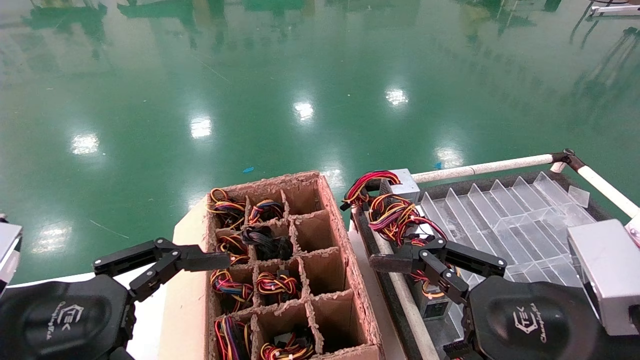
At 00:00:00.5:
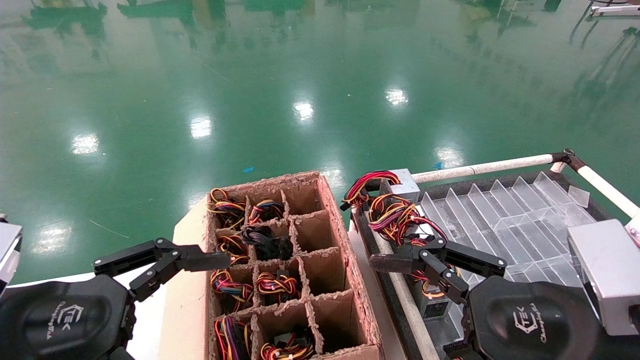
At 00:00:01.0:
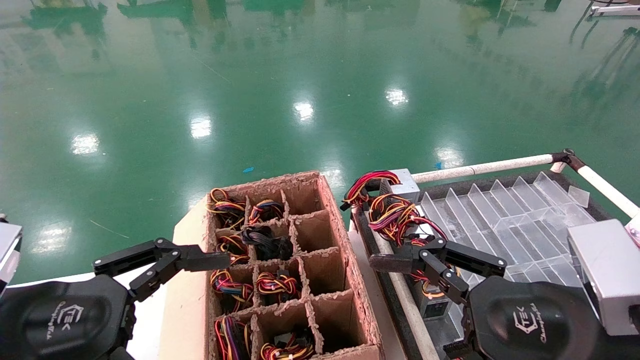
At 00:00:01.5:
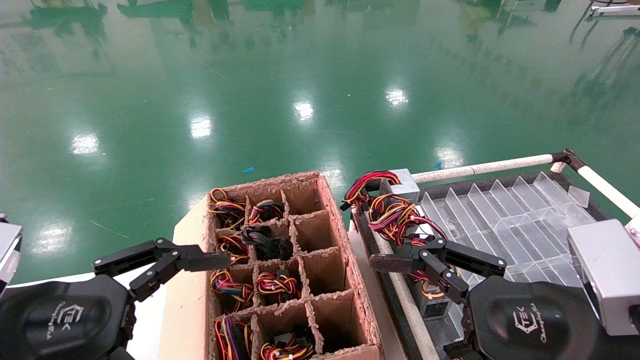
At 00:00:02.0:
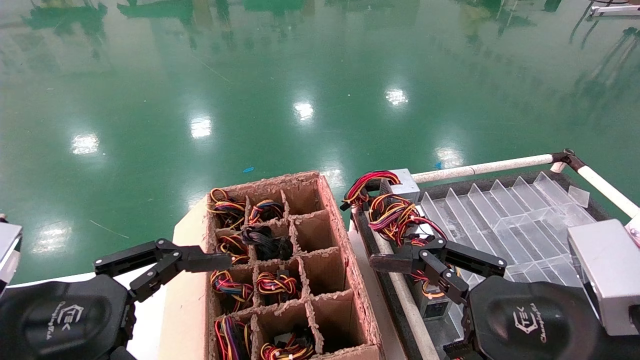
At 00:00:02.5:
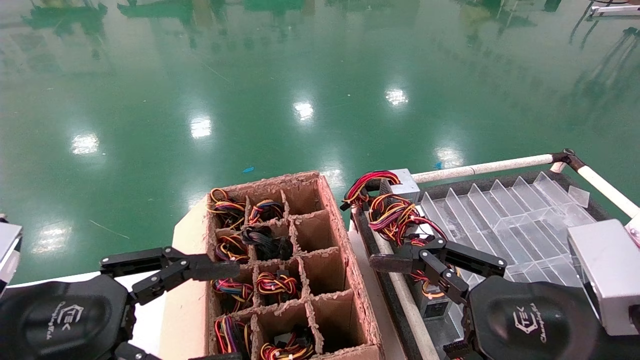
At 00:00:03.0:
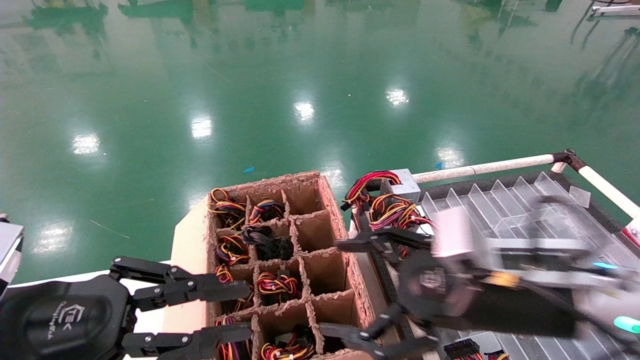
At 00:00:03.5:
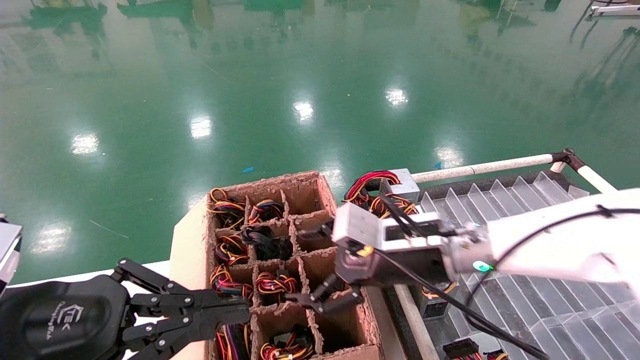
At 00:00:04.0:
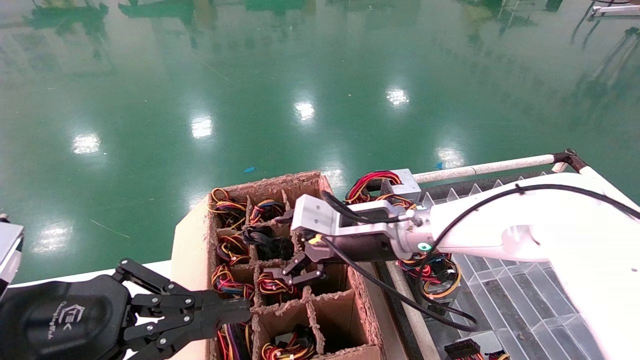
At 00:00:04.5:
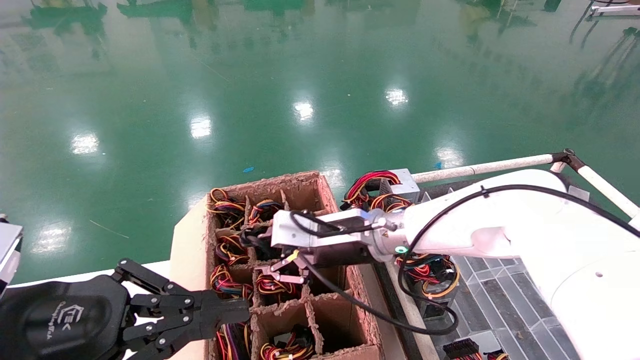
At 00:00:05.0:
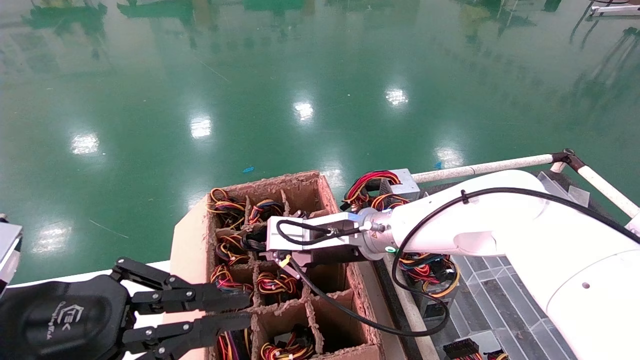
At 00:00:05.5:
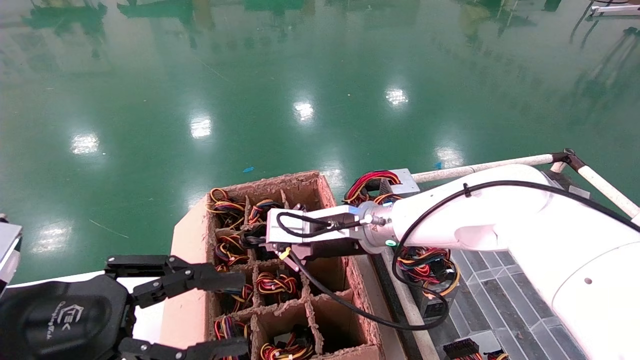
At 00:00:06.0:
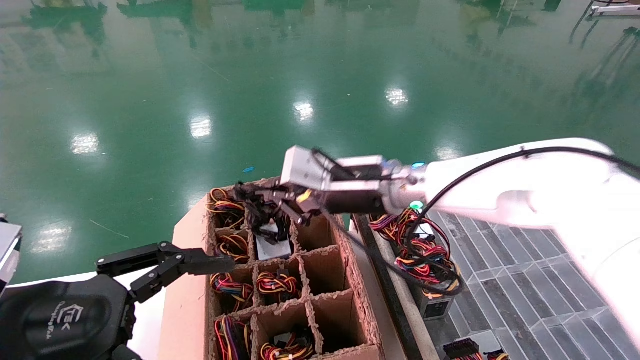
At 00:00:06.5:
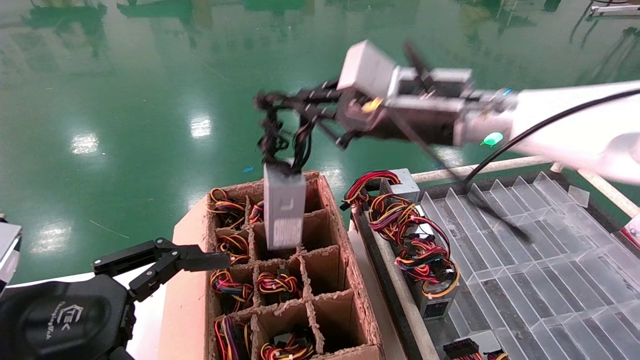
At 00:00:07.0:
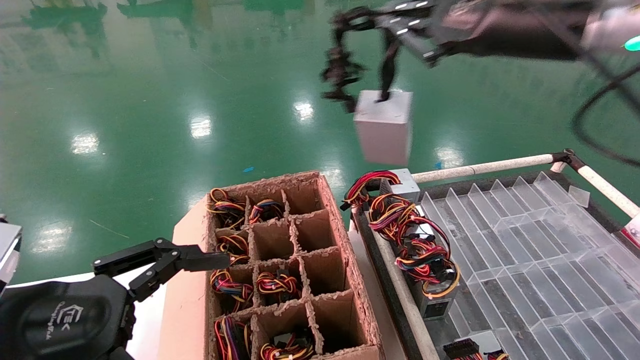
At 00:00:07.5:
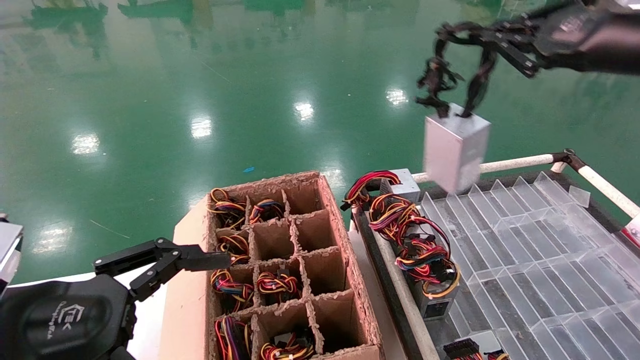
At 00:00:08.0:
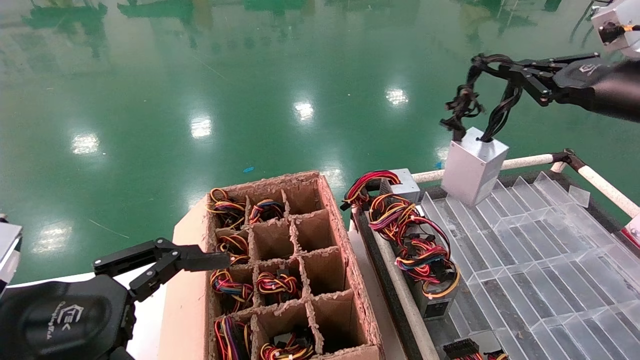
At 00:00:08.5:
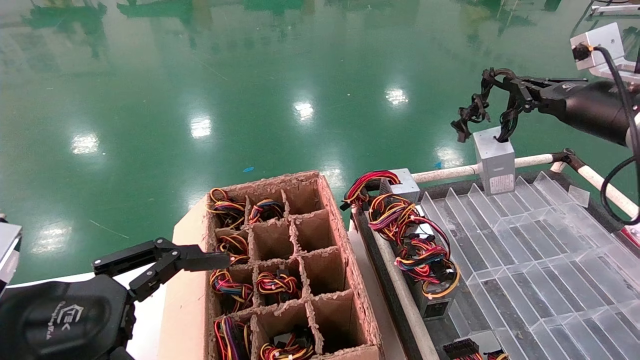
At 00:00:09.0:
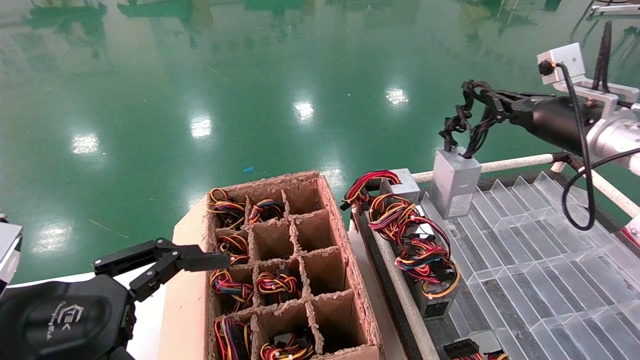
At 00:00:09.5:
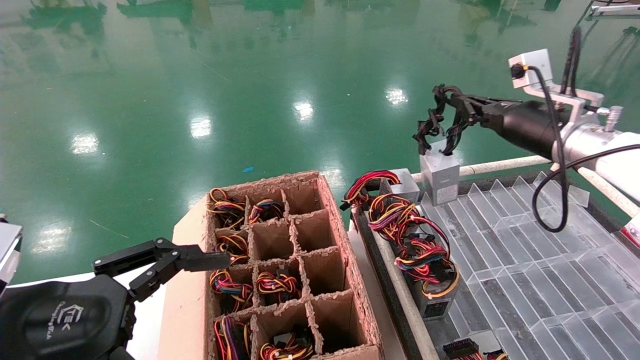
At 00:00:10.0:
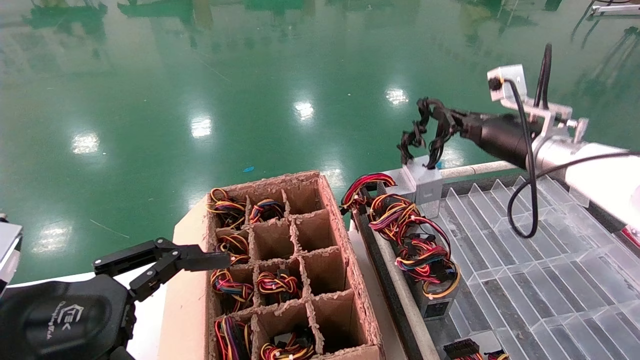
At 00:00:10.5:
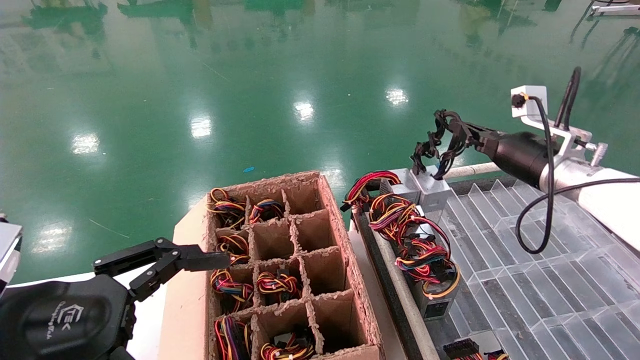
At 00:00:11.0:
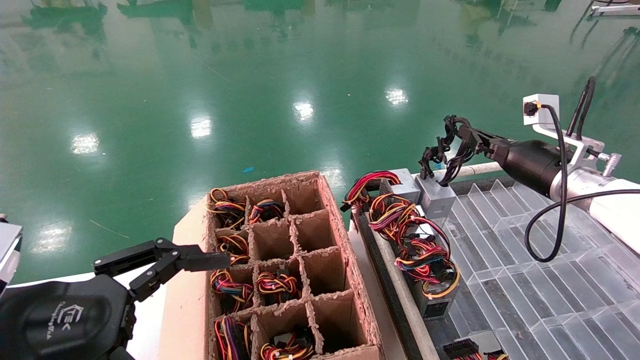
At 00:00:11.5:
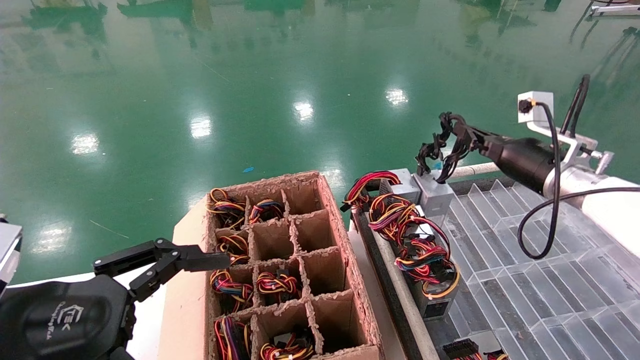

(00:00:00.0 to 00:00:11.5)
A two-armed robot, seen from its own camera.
Step, 00:00:02.5 - 00:00:05.0: Grab and lift the power supply from the large box.
00:00:00.0 - 00:00:02.0: Neither gripper changes place.
00:00:02.0 - 00:00:04.0: The left gripper closes up. The right gripper goes approximately 25 cm forward and to the left.
00:00:04.0 - 00:00:06.0: The right gripper moves upward, about 10 cm, and closes up; the left gripper opens.
00:00:06.0 - 00:00:07.5: The right gripper travels to the right and upward by some 30 cm.
00:00:07.5 - 00:00:09.5: The right gripper moves forward and downward, some 15 cm.
00:00:09.5 - 00:00:11.5: The right gripper moves downward, roughly 5 cm.

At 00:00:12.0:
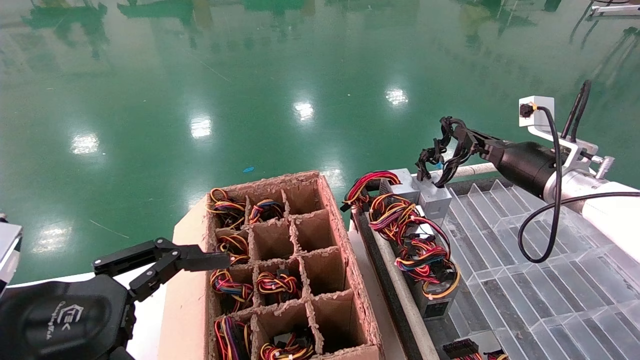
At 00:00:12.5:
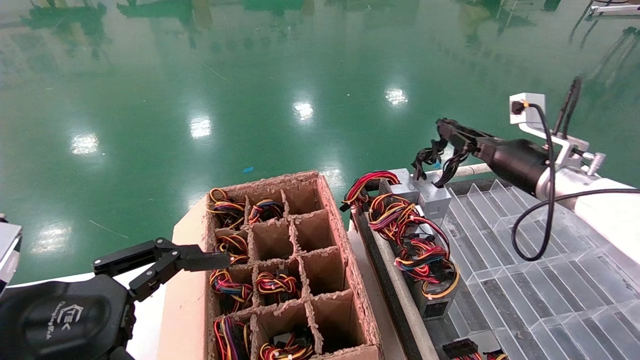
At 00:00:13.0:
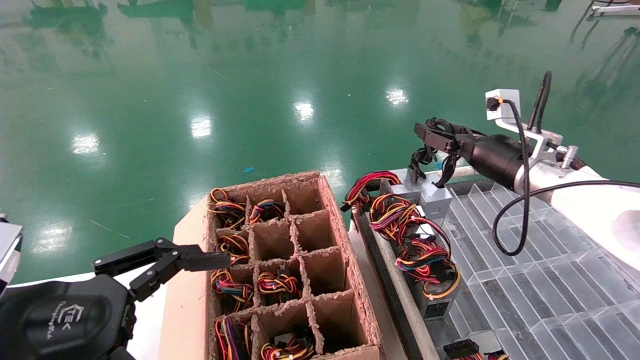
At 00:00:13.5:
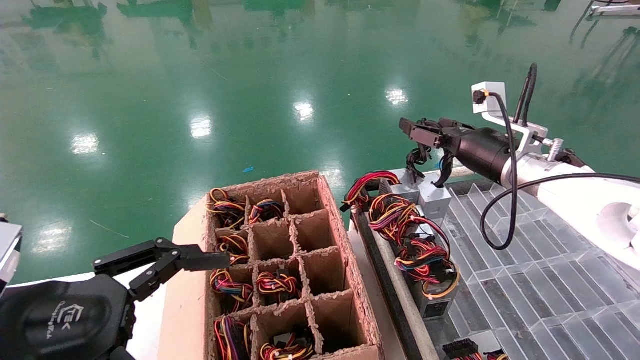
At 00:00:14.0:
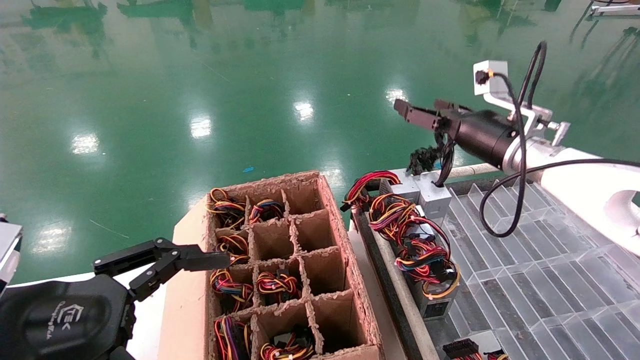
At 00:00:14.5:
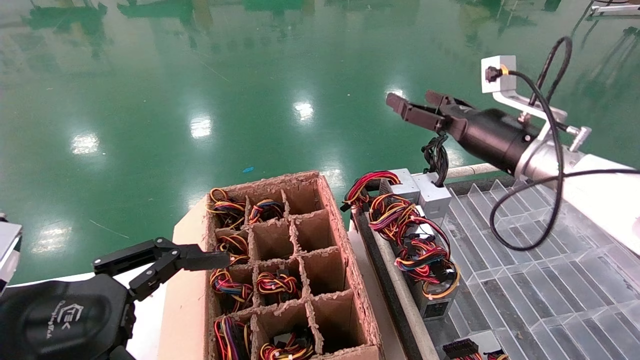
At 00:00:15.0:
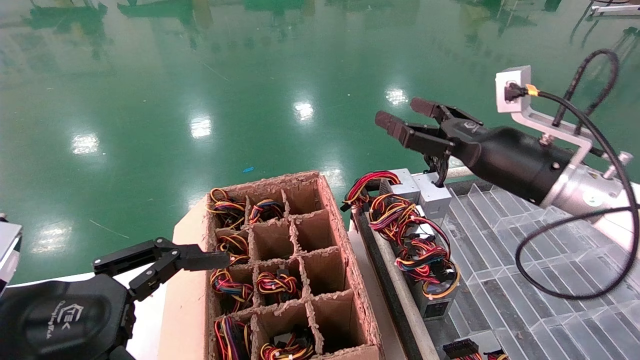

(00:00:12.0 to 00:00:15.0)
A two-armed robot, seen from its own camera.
00:00:12.0 - 00:00:13.5: The right gripper travels to the left by about 5 cm, and opens up.
00:00:13.5 - 00:00:15.0: The right gripper moves backward, approximately 10 cm.
